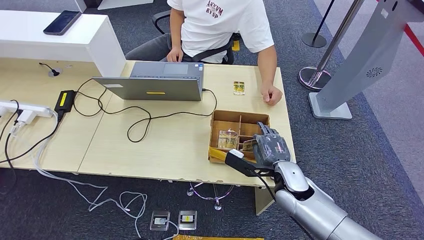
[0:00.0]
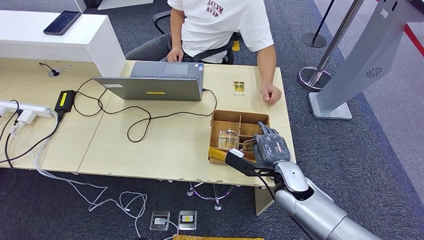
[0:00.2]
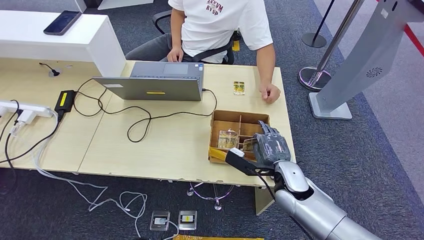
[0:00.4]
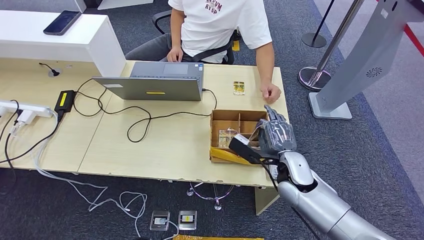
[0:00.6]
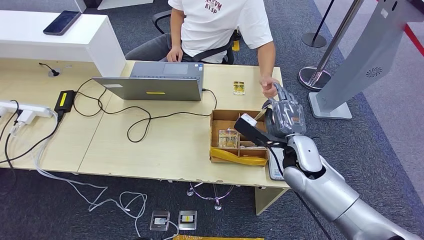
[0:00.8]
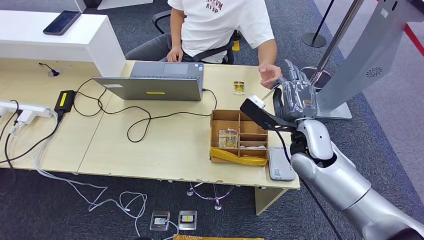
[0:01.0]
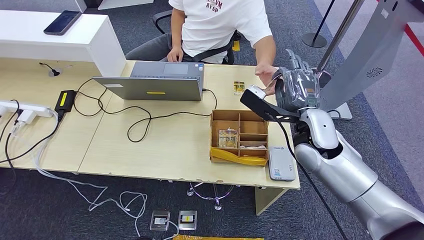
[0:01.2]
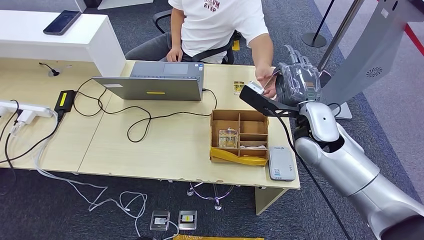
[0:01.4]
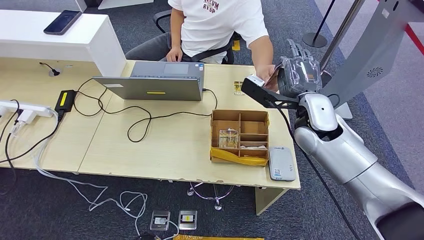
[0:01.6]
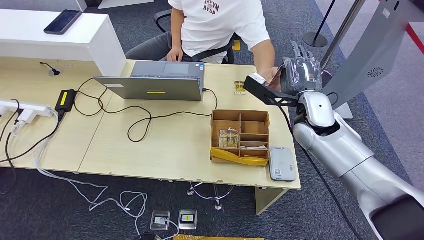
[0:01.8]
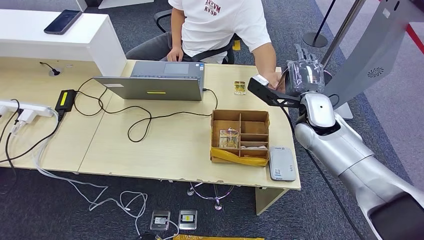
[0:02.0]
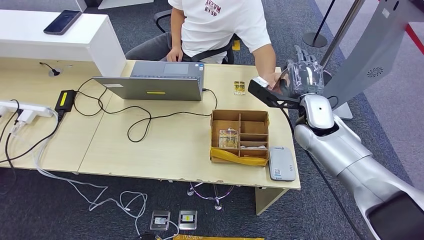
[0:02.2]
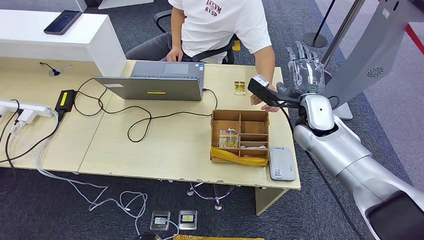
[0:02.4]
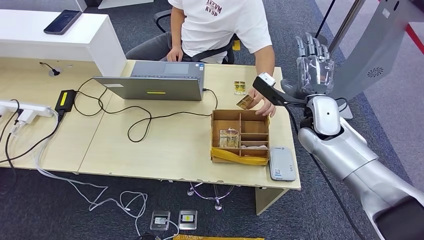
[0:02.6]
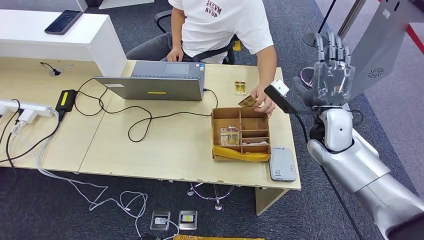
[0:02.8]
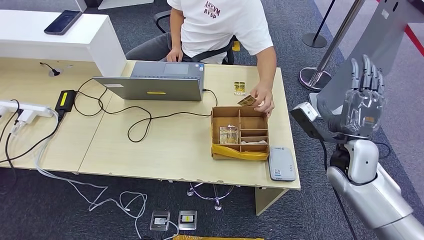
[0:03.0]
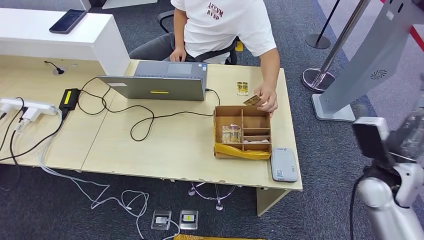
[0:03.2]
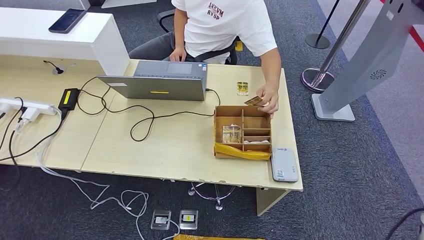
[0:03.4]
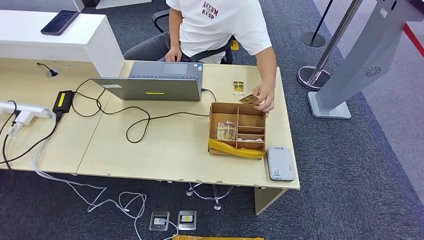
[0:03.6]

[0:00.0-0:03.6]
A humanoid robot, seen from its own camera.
Step, 0:01.0 to 0:03.6: Hand the room key to the person.
